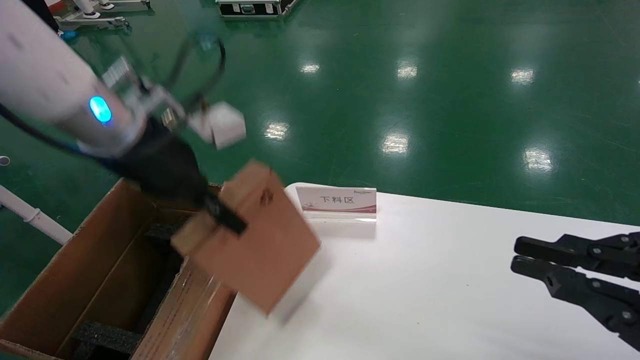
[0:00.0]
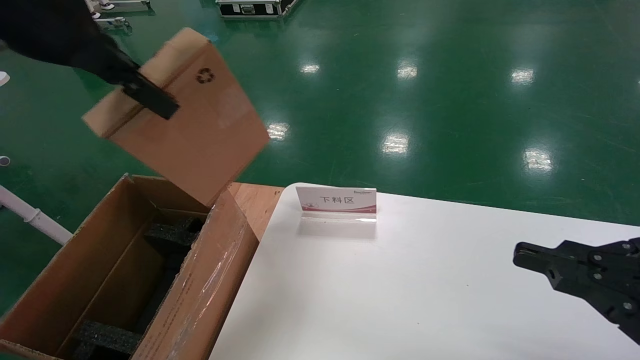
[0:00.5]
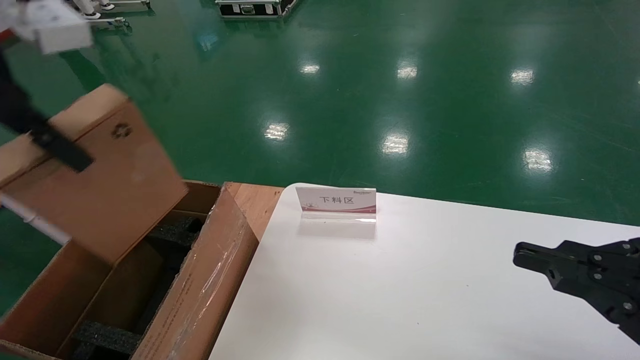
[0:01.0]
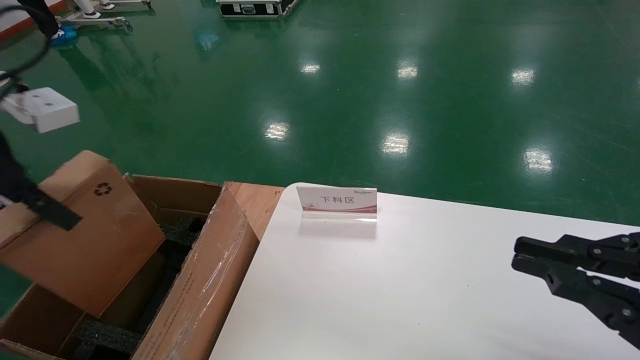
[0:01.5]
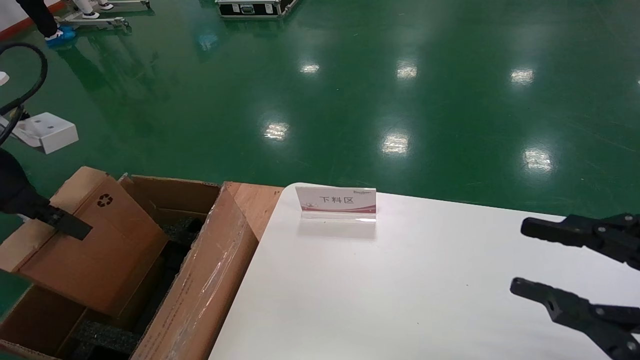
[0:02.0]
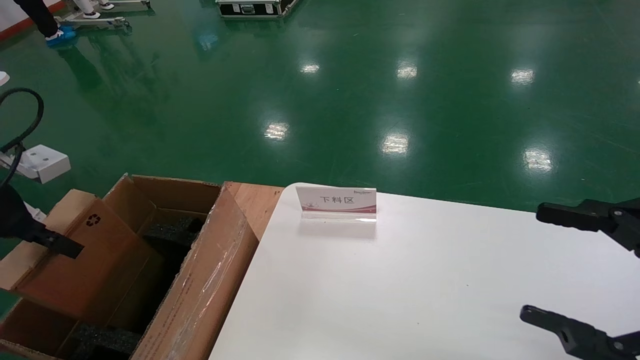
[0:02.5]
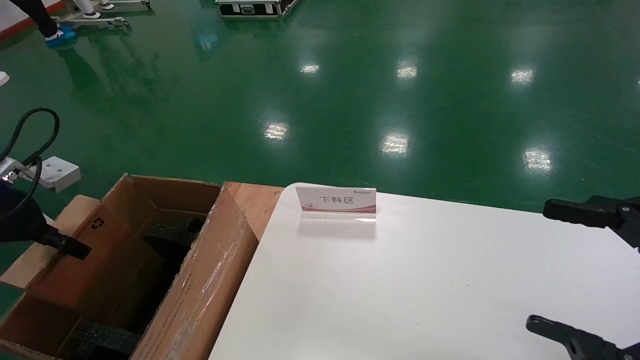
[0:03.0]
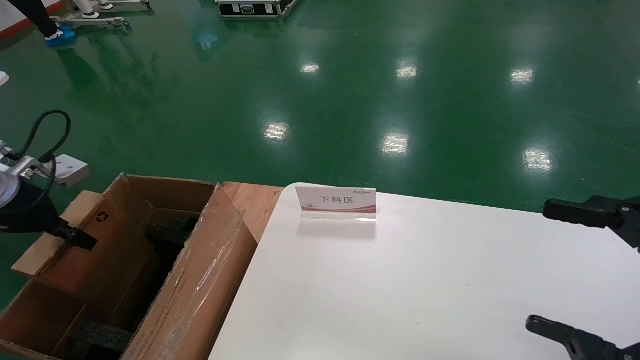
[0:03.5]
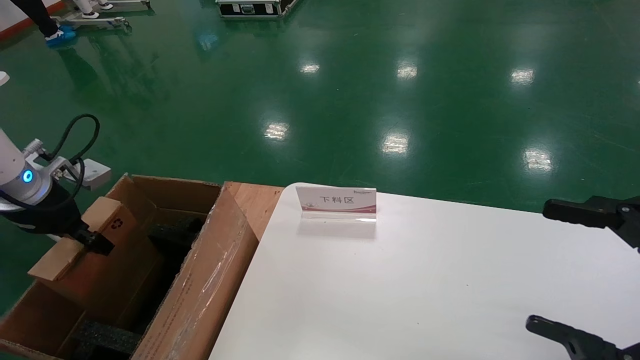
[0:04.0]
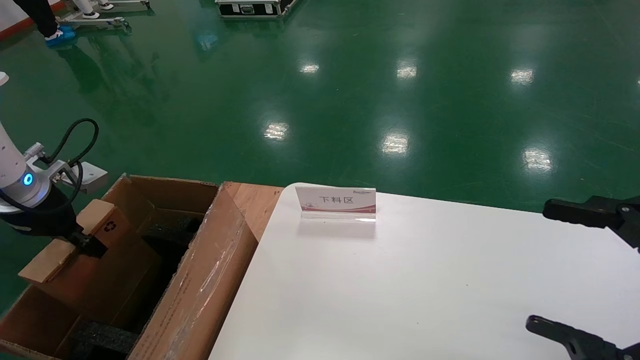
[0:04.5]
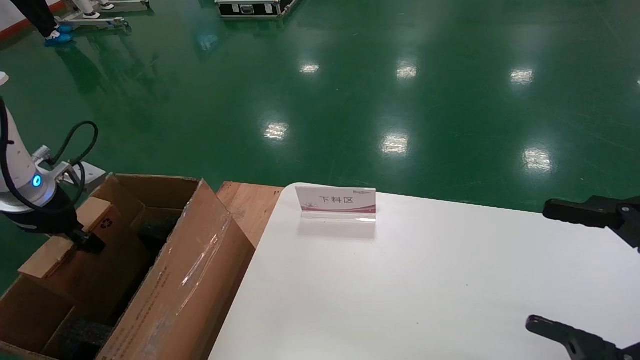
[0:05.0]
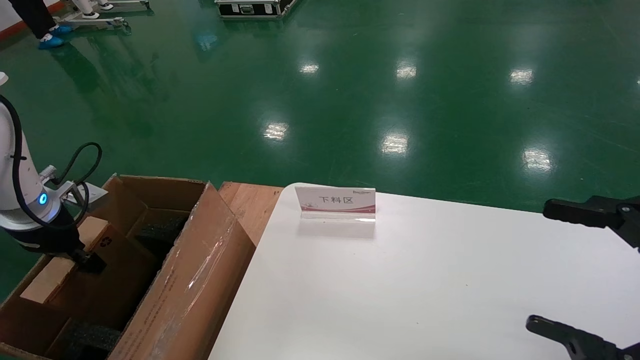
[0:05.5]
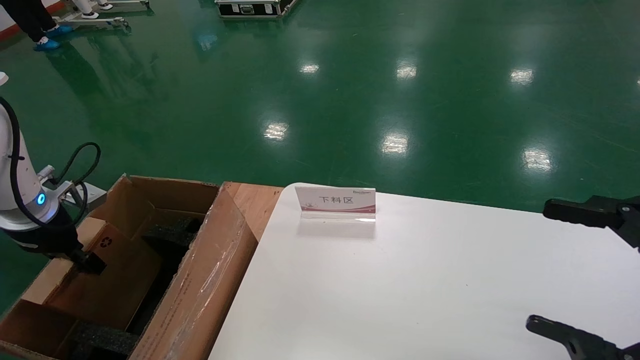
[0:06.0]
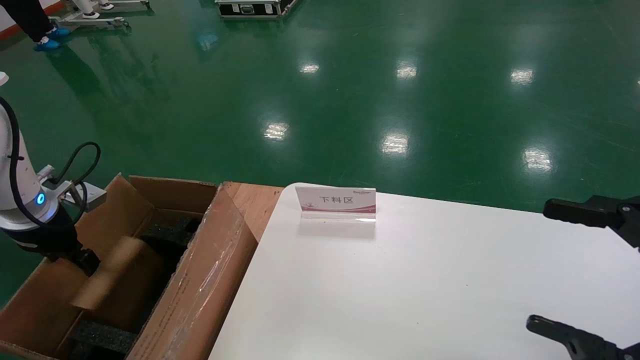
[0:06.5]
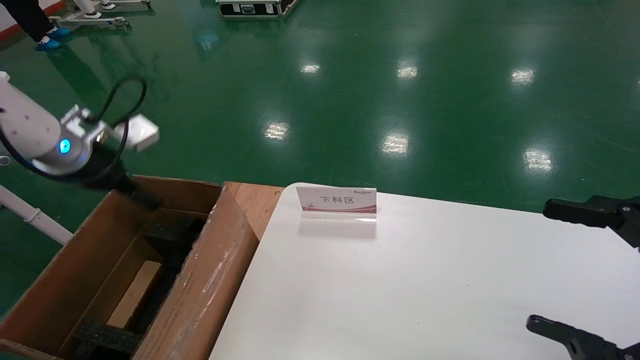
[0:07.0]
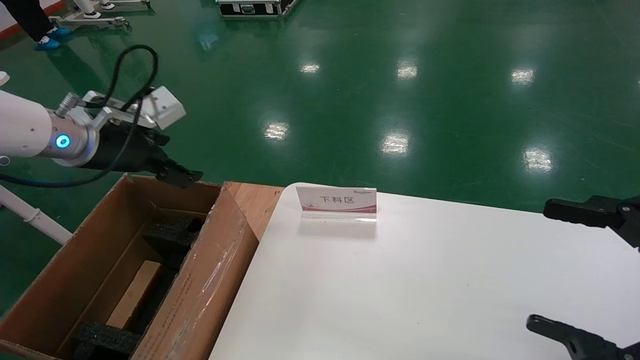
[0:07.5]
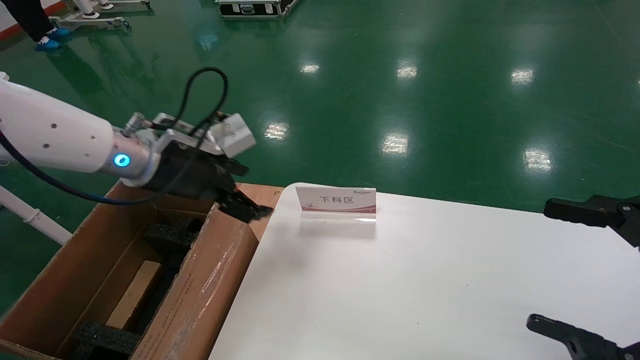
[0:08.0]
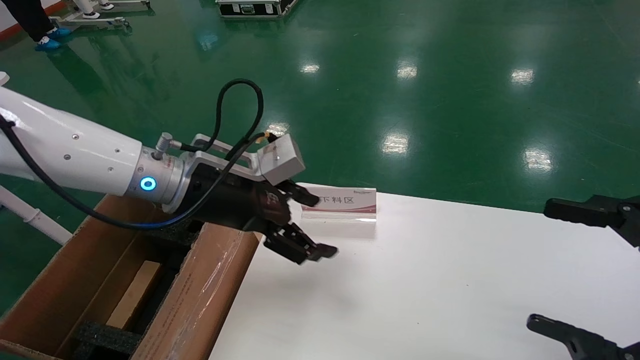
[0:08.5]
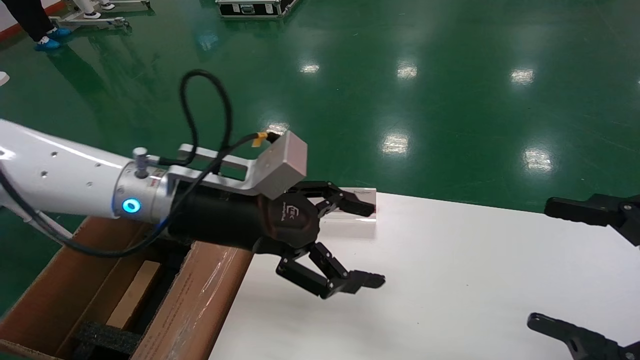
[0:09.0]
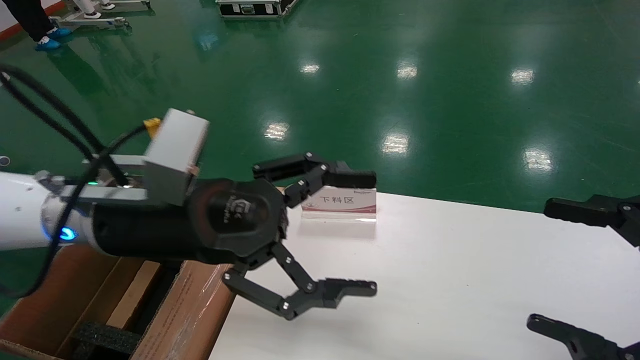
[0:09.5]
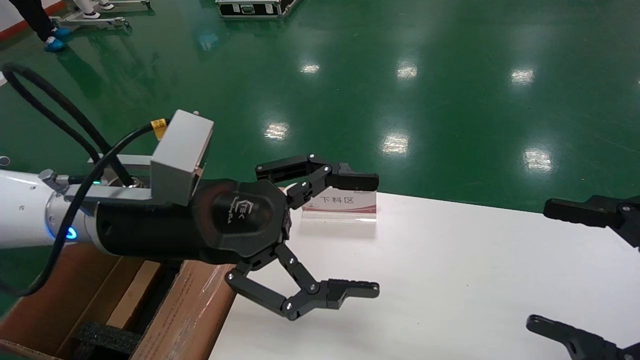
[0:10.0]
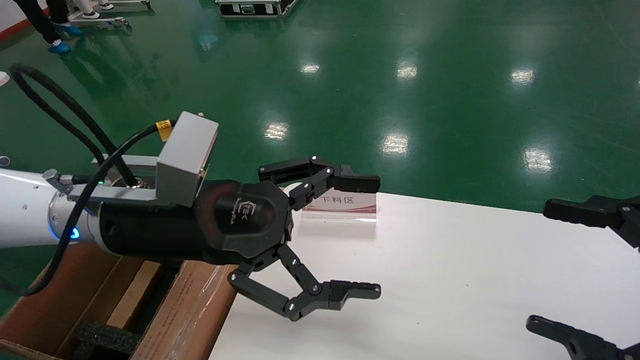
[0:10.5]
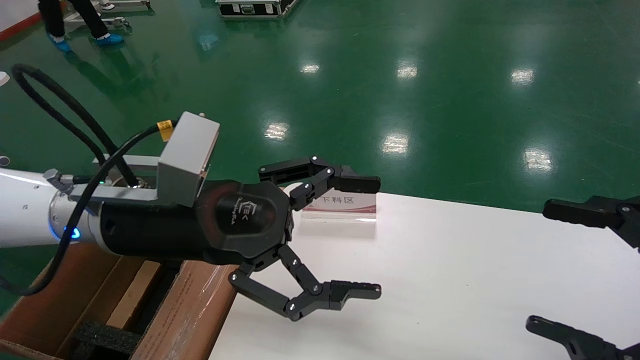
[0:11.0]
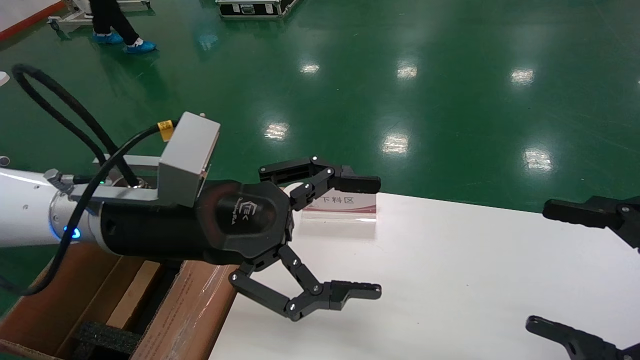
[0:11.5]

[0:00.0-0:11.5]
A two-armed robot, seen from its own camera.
Task of the whole recording: pick up the small cardboard box and load it into the large cardboard box.
Step, 0:00.5 to 0:06.5: Place the mouse and power cord box into the case.
0:00.0 to 0:02.0: The left gripper travels to the left and backward by some 15 cm.
0:02.0 to 0:04.0: The right gripper opens its fingers. The left gripper shifts roughly 15 cm downward, forward and to the left.
0:04.0 to 0:06.0: The left gripper ends up roughly 5 cm from where it was.
0:06.0 to 0:07.5: The left gripper is displaced to the right and upward by roughly 20 cm, and opens up.
0:07.5 to 0:09.5: The left gripper heads to the right and backward, covering approximately 15 cm.
0:09.5 to 0:11.5: Both grippers stay about where they are.
